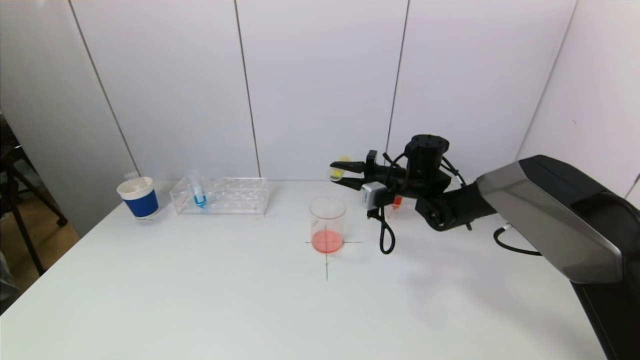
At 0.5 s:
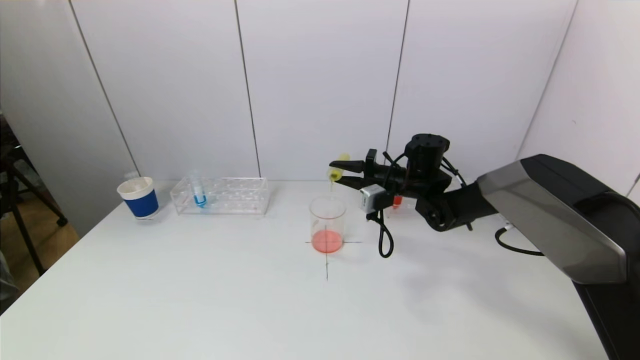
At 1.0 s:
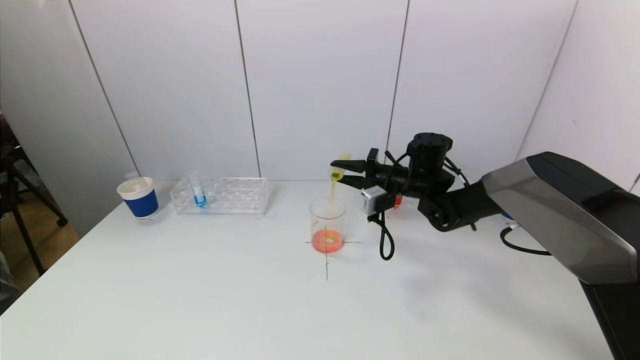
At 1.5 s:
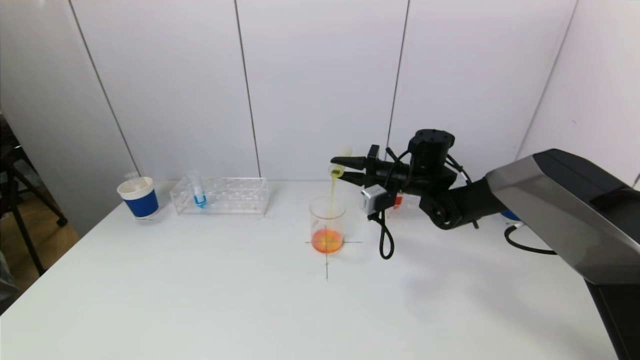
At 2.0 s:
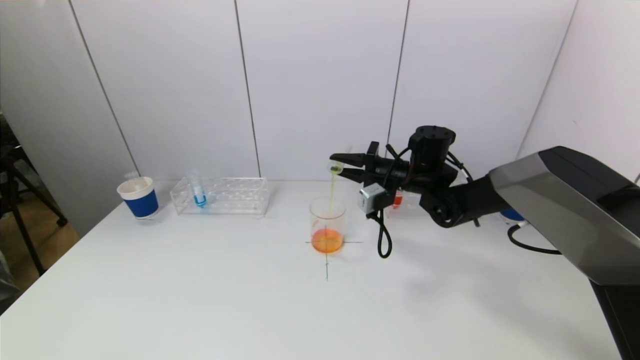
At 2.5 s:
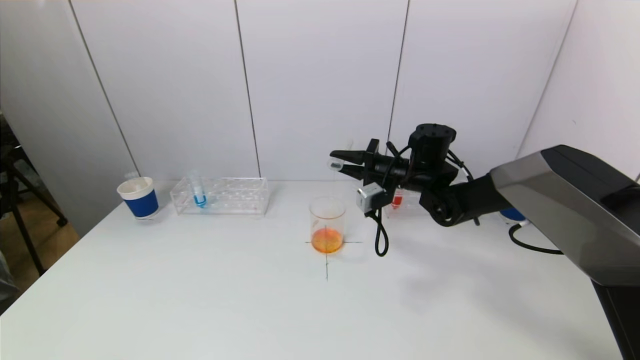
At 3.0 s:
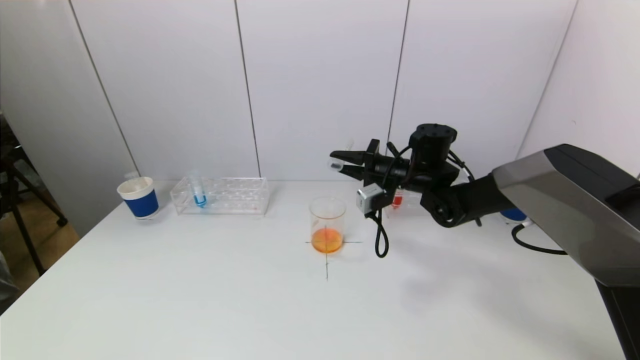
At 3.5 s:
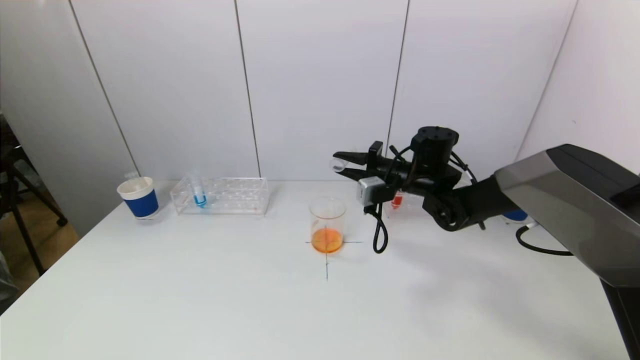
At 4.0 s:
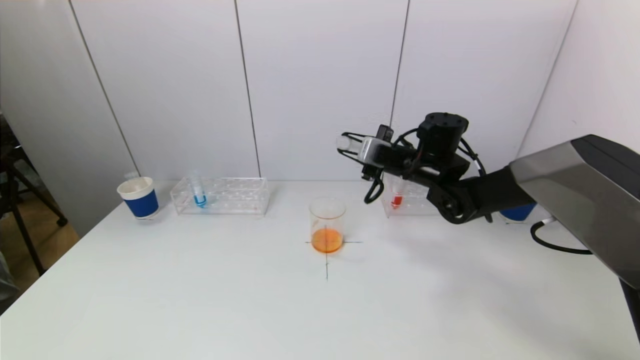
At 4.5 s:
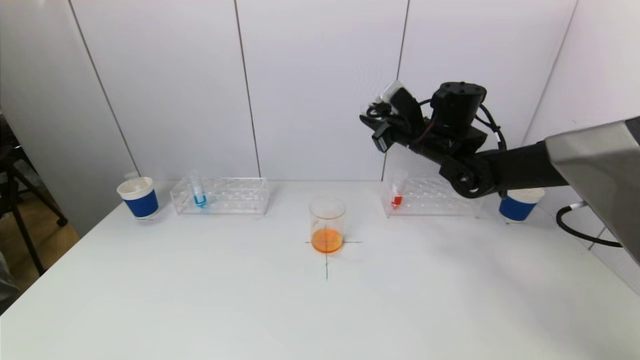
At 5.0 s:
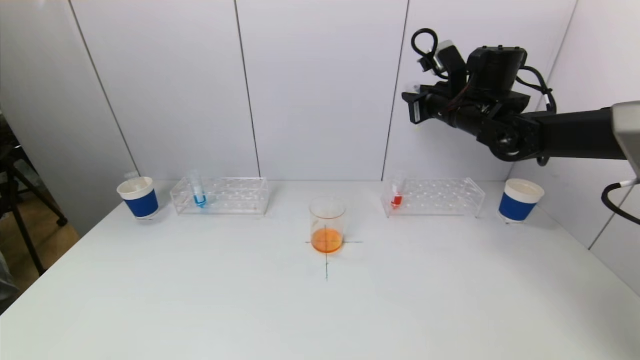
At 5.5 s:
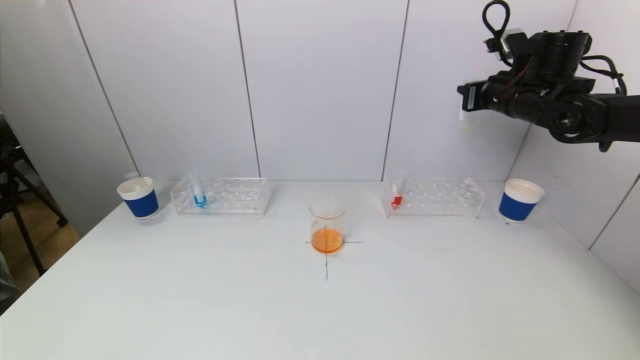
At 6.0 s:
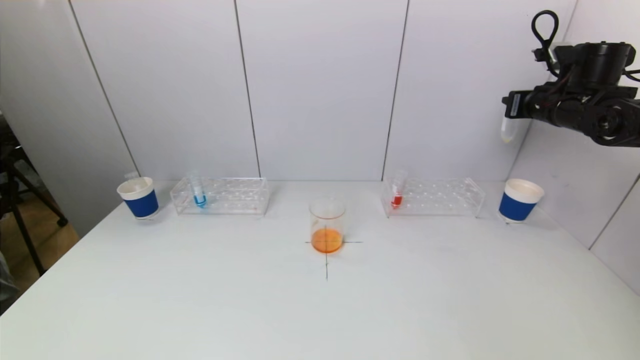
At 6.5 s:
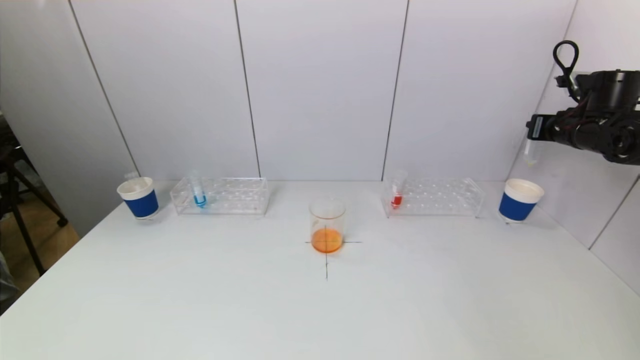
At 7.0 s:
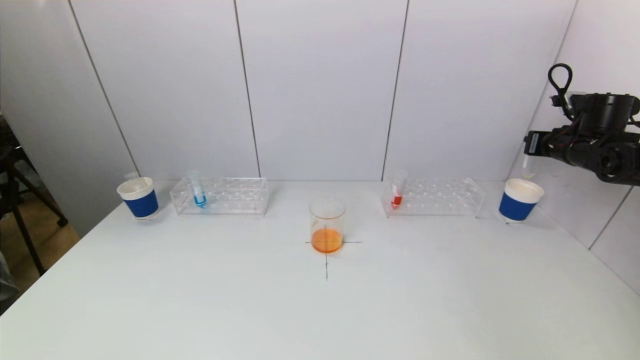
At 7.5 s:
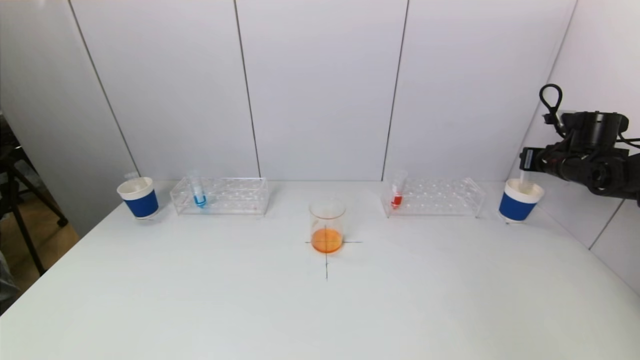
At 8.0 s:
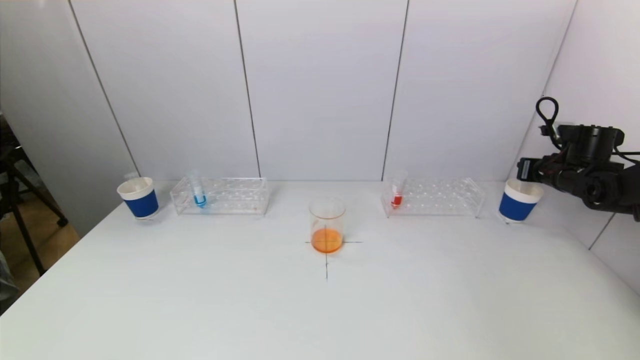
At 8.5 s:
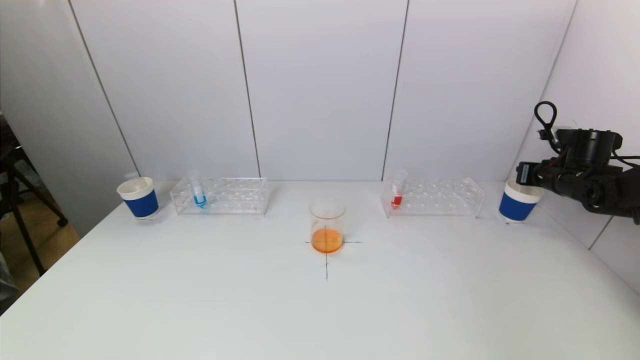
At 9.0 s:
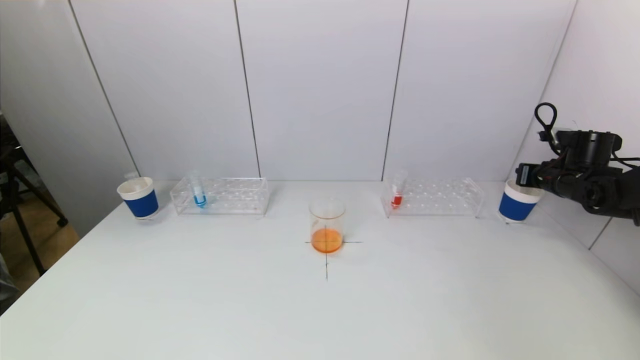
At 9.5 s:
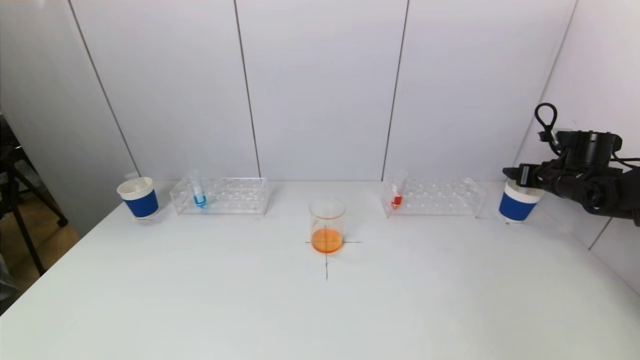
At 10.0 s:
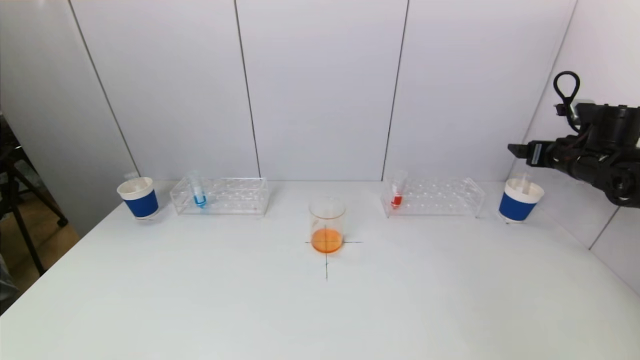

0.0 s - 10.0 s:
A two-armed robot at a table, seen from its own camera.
Task of the whole recording: pick up a test tube with pigment on left test tube rack and a test tube with pigment on right test tube rack by grippers and pour them into the beaker.
Step, 0.0 s - 2.5 s: Pour the yellow reagent into the graduated cylinder with the right gripper.
Step, 3.0 s - 10.0 s: Place the test tube into the paper cup with the right gripper.
0.0 s - 2.0 s: There are only small adjustments of the grippers.
4.0 s - 6.0 s: The right gripper travels to the right and upward by roughly 25 cm.
6.0 s - 8.0 s: The right gripper goes roughly 15 cm downward and to the right.
8.0 s - 10.0 s: The right gripper is displaced upward by approximately 5 cm, and opens its fingers.

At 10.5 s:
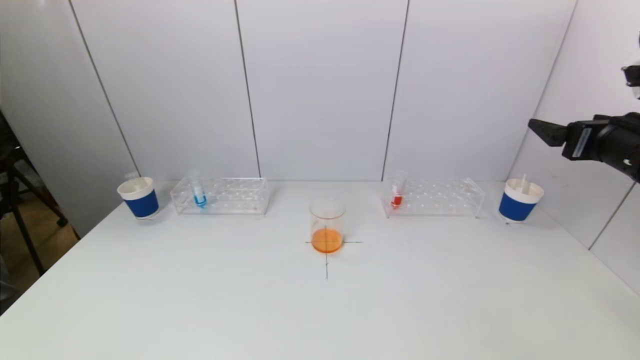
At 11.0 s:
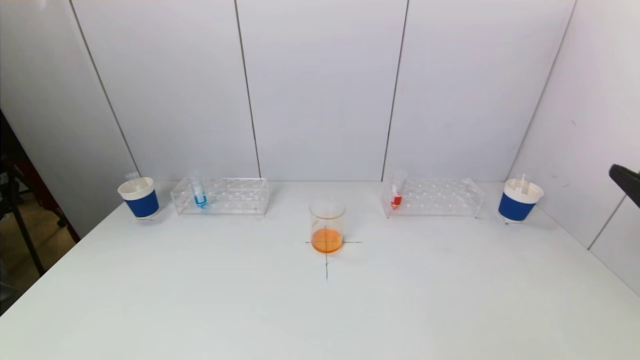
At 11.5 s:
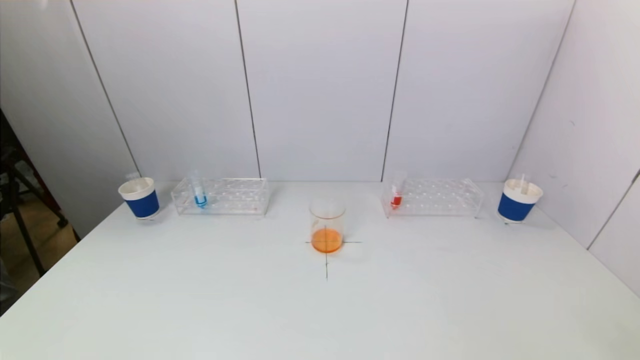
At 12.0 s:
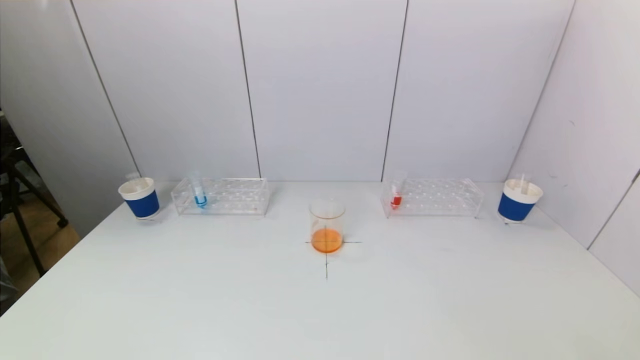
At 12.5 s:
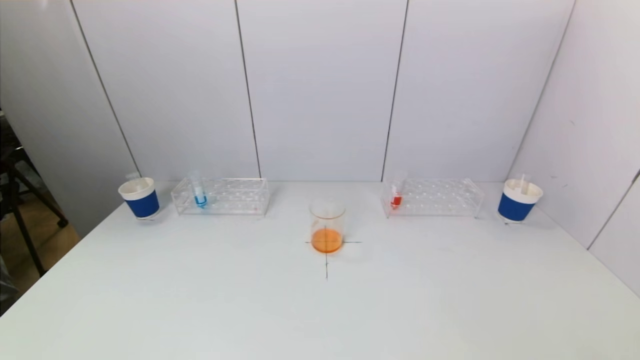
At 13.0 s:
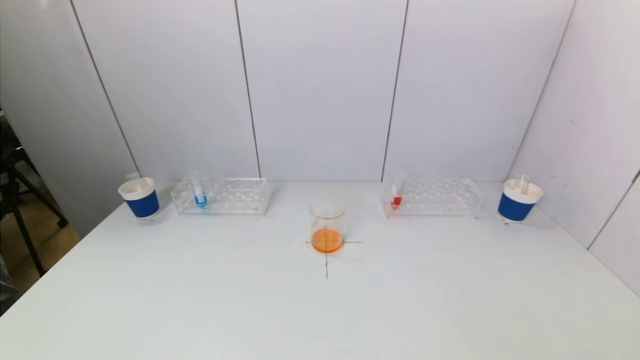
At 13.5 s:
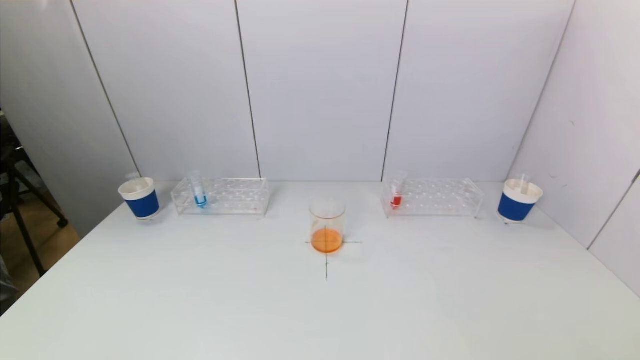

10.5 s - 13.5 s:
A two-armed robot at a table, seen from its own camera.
Task of the whole recording: pick up a test tube with pigment on left test tube rack and a test tube with pigment on right test tube rack by grippers and pour them into the beaker.
10.5 s - 12.0 s: The right gripper heads backward and downward, covering about 30 cm.
